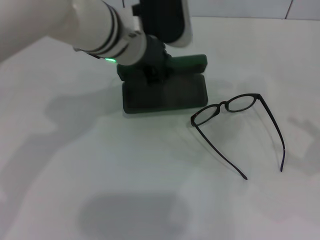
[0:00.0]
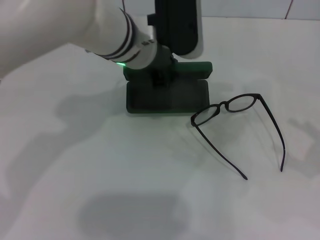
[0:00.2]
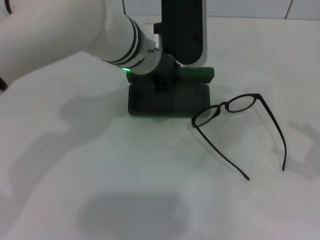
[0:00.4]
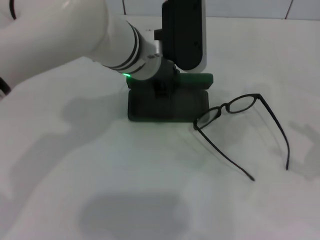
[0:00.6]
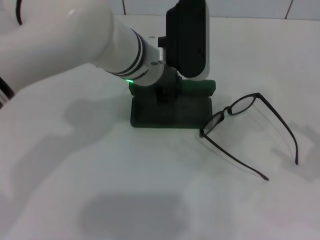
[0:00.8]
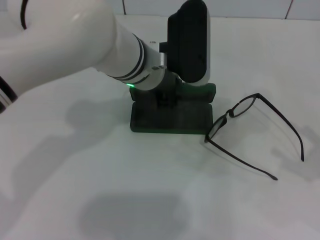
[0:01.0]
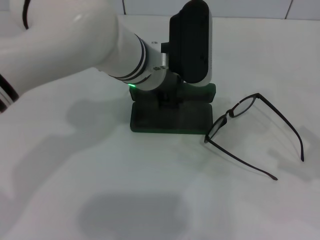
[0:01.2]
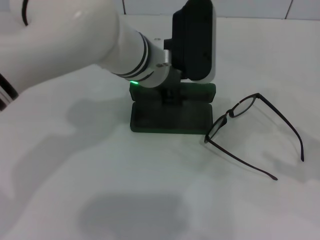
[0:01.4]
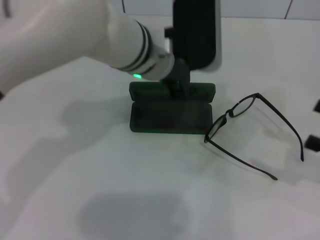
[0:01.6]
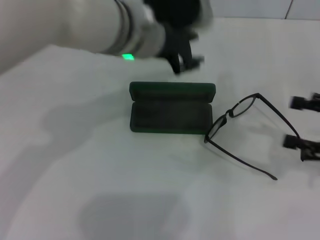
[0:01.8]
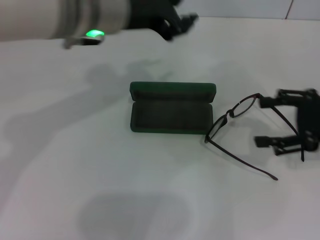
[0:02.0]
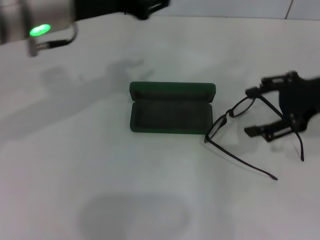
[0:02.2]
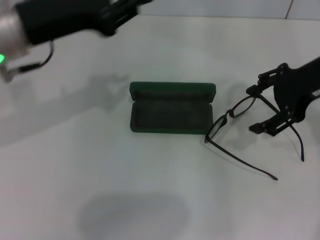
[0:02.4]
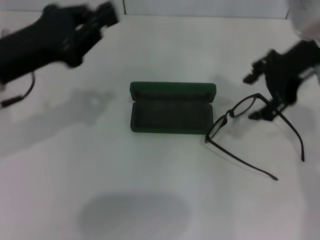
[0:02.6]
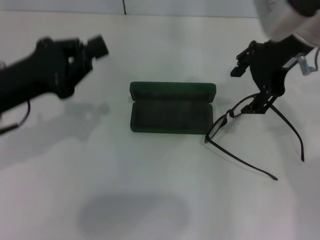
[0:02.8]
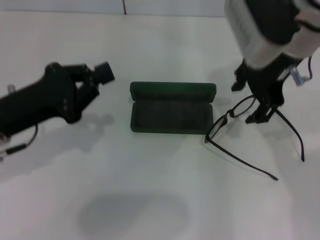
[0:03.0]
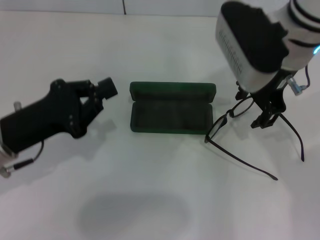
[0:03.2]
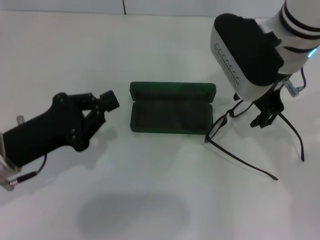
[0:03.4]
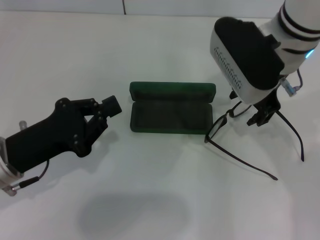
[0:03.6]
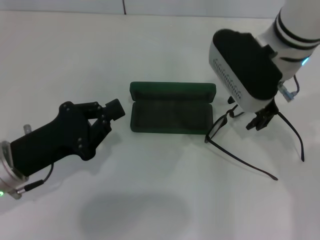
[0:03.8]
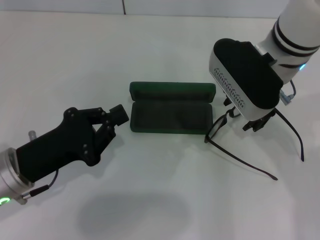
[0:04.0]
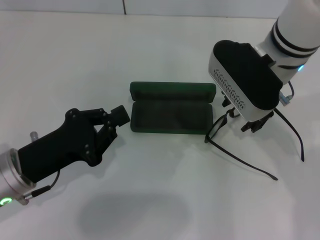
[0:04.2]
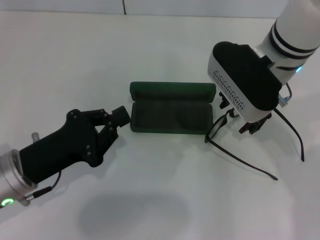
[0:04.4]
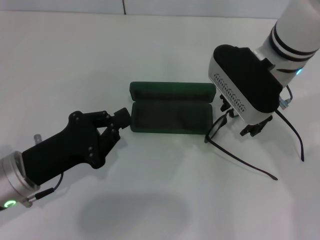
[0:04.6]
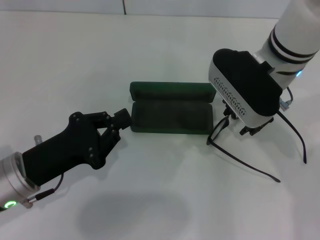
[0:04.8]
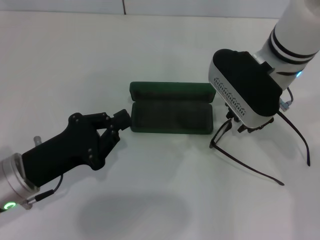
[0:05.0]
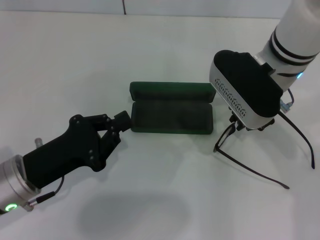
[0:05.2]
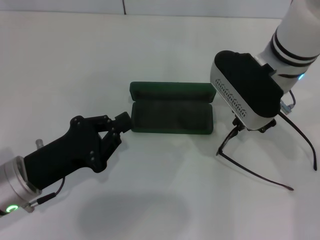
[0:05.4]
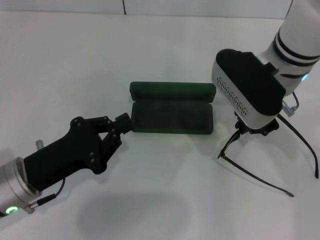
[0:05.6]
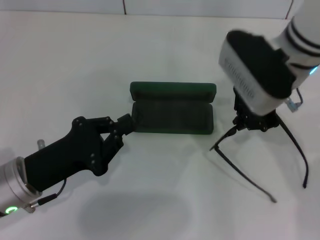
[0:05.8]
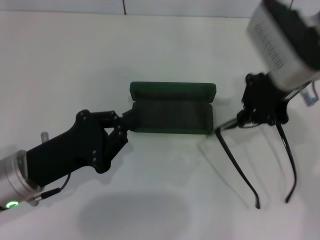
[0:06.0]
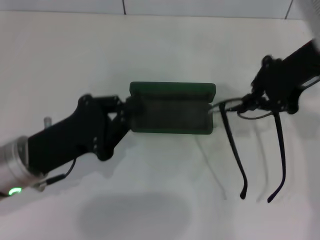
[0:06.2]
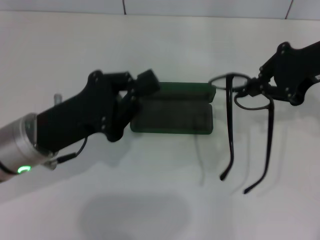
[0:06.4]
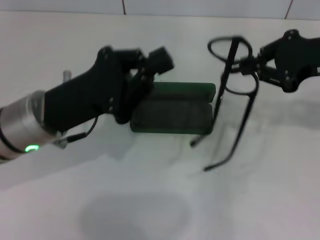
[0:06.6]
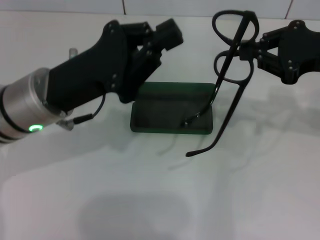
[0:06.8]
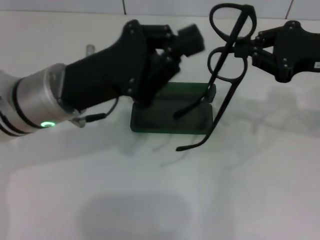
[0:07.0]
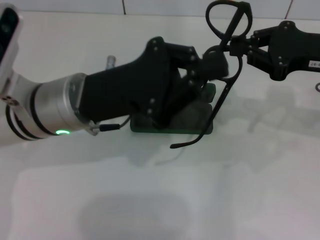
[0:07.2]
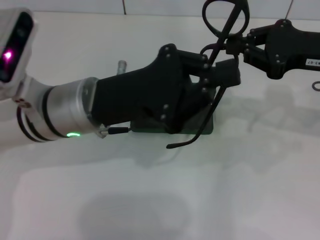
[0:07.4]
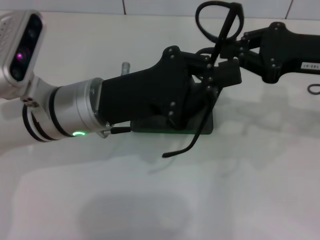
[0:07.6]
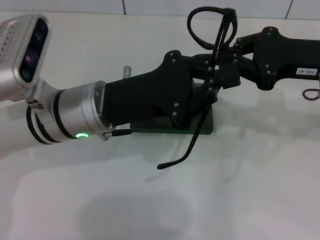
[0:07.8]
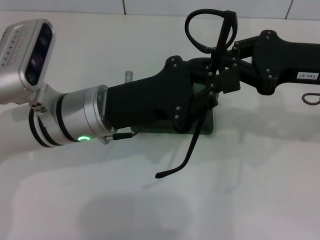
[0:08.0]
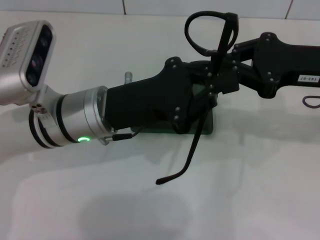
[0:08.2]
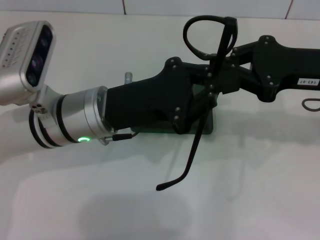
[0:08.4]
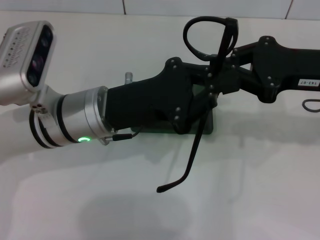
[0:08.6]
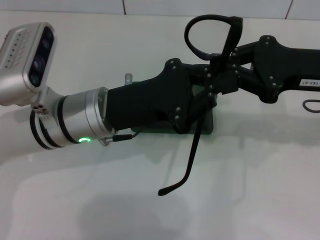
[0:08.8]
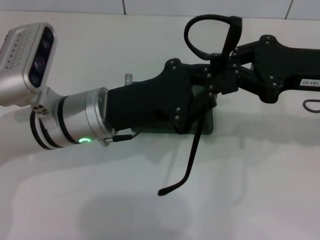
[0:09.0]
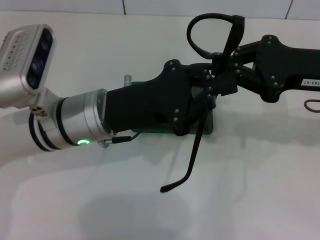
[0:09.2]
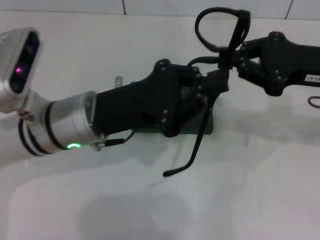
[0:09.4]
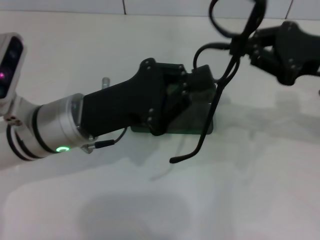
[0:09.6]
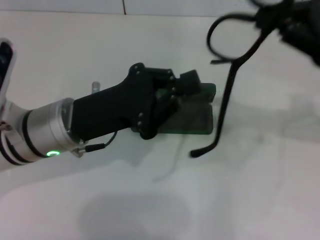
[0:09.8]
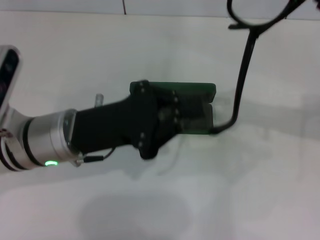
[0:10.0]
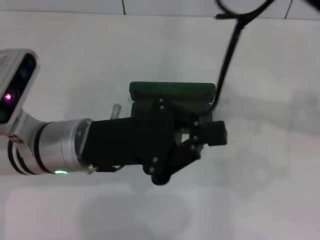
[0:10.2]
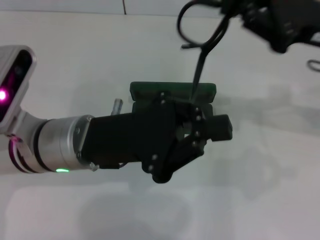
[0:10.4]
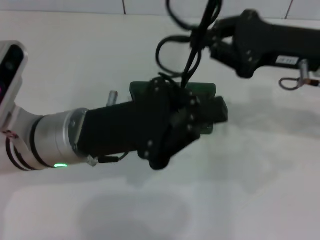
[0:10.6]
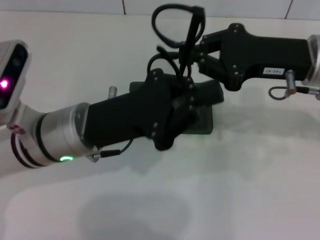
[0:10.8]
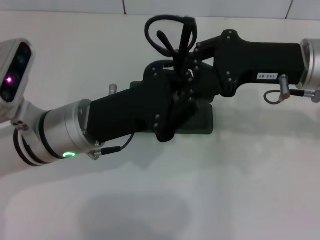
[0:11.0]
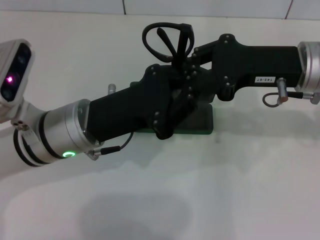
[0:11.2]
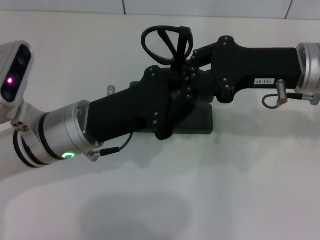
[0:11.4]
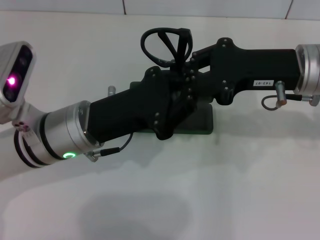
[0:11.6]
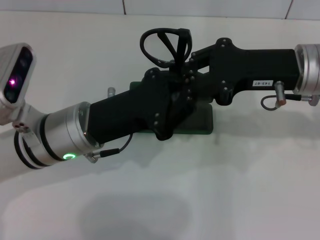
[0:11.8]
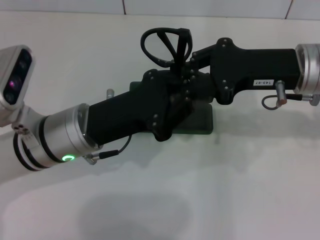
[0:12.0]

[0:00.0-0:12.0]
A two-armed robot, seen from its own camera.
Step, 0:00.0 to 0:01.6: Place the glasses case in the center of the table with your left hand.
Step, 0:01.8 to 0:05.4: Grab the eyeglass frame with your right hand.
Step, 0:05.6 to 0:12.0: Fold the frame with your left hand.
0:01.6 to 0:03.0: The left gripper goes some 25 cm to the left and backward, and closes; the right gripper shifts some 30 cm to the left, forward and upward.
0:03.0 to 0:04.4: The two grippers go approximately 5 cm downward.
0:04.4 to 0:06.0: The right gripper moves approximately 5 cm, and closes.
0:06.0 to 0:07.6: The left gripper travels to the right, forward and upward by about 15 cm. Meanwhile the right gripper is displaced to the right by roughly 10 cm.
0:10.4 to 0:12.0: The right gripper shifts some 5 cm to the left.

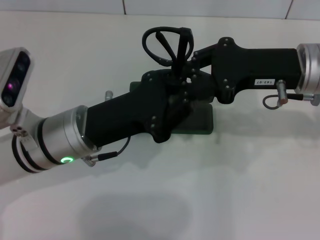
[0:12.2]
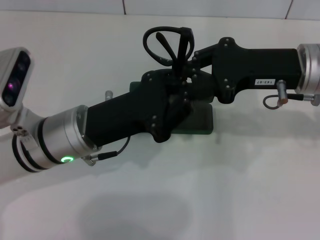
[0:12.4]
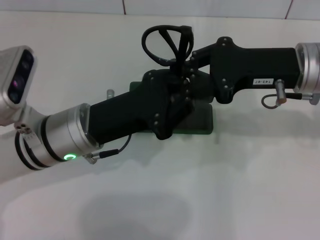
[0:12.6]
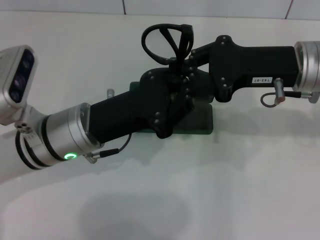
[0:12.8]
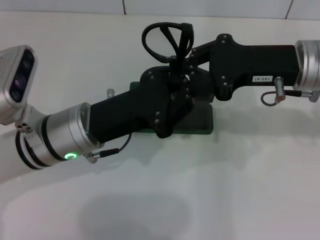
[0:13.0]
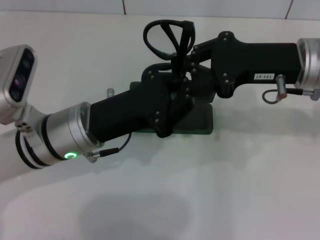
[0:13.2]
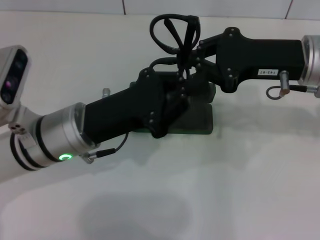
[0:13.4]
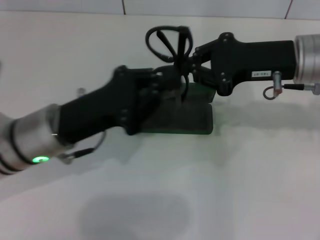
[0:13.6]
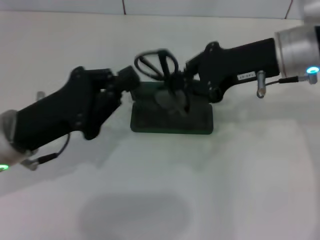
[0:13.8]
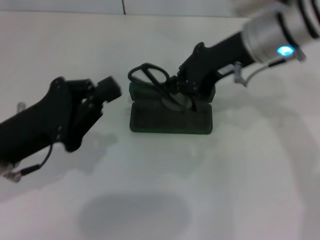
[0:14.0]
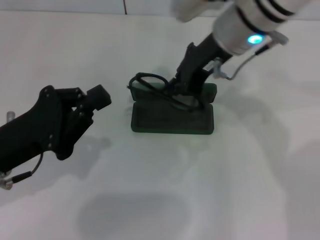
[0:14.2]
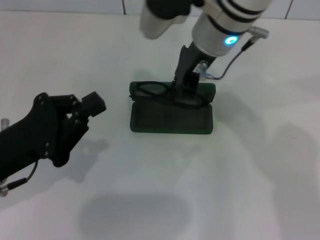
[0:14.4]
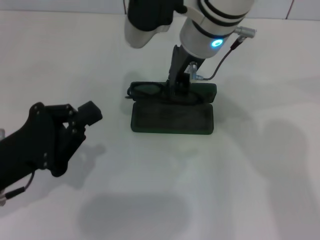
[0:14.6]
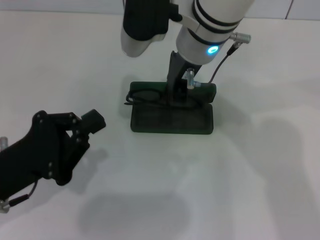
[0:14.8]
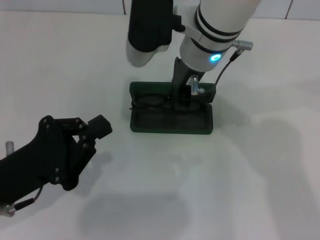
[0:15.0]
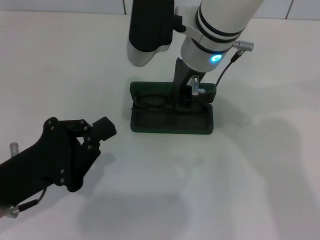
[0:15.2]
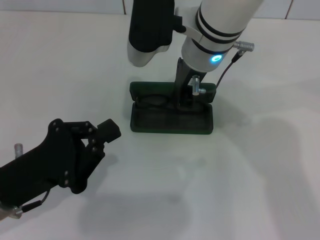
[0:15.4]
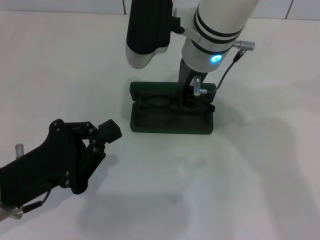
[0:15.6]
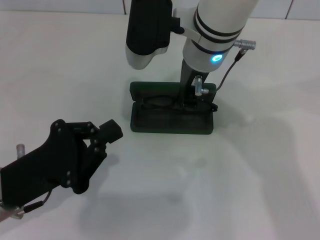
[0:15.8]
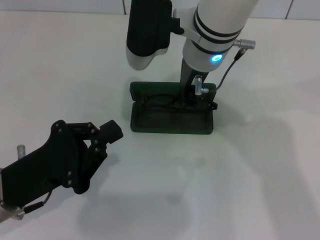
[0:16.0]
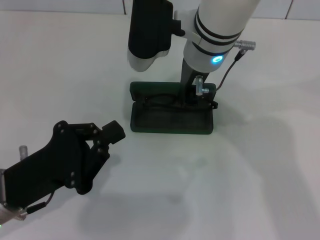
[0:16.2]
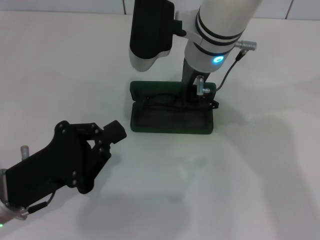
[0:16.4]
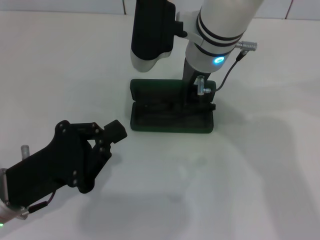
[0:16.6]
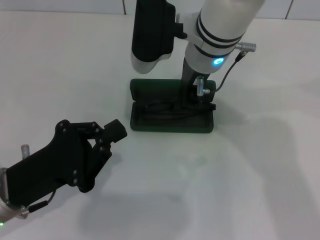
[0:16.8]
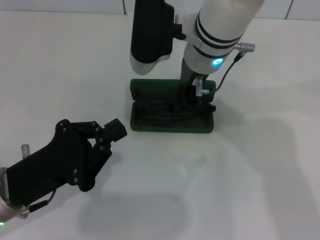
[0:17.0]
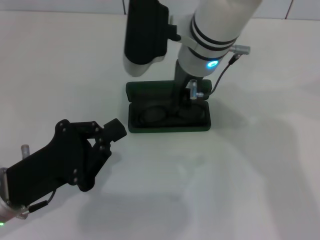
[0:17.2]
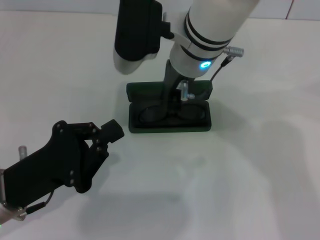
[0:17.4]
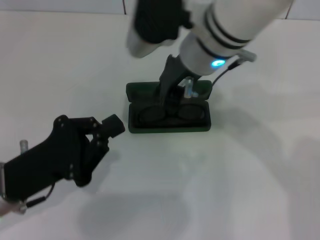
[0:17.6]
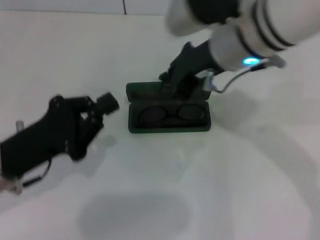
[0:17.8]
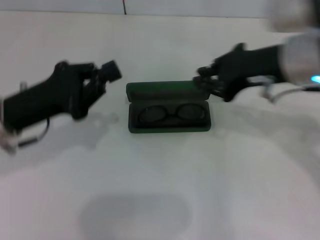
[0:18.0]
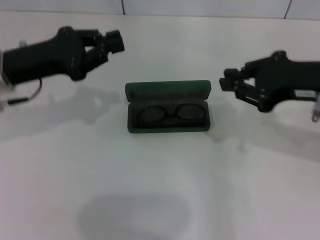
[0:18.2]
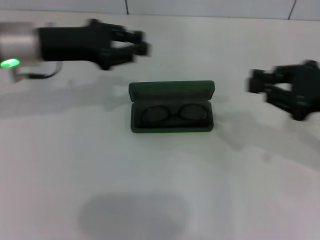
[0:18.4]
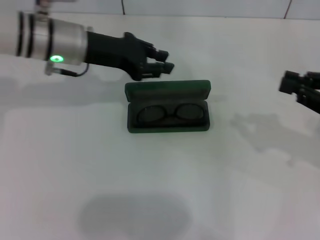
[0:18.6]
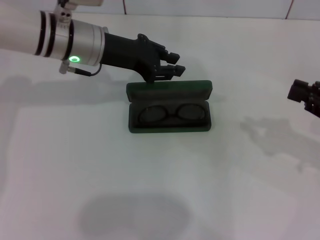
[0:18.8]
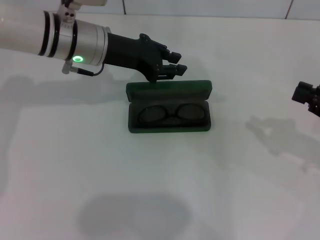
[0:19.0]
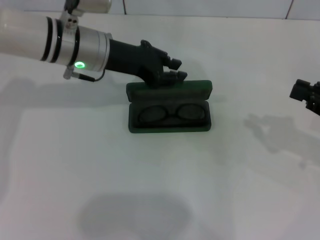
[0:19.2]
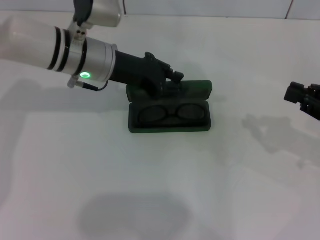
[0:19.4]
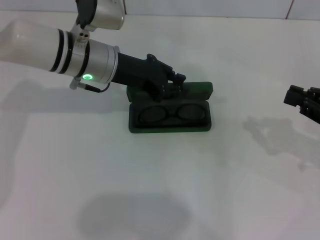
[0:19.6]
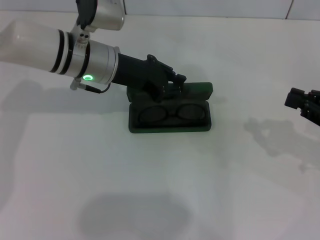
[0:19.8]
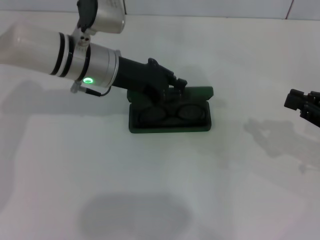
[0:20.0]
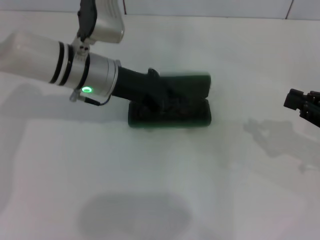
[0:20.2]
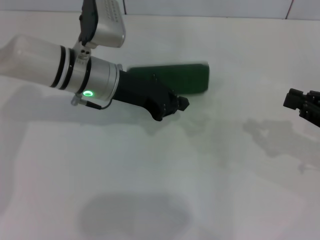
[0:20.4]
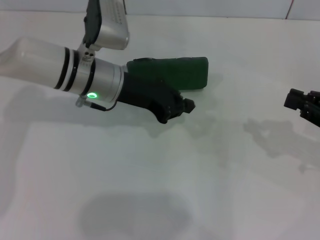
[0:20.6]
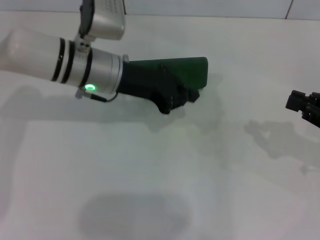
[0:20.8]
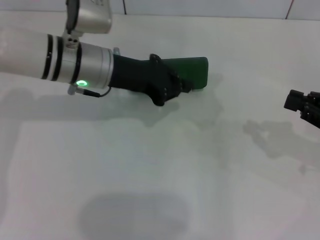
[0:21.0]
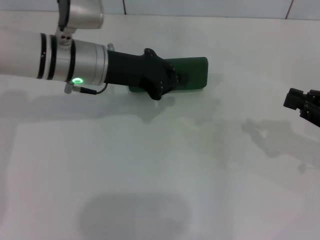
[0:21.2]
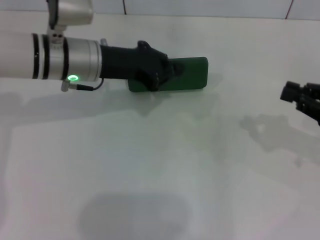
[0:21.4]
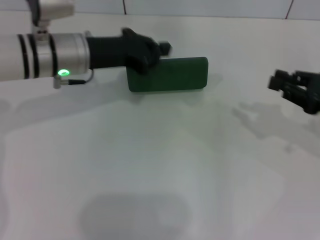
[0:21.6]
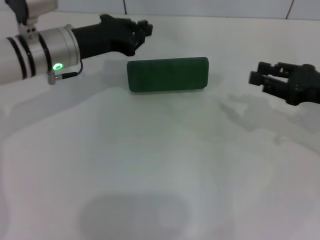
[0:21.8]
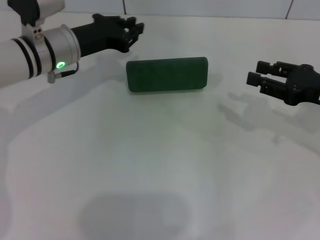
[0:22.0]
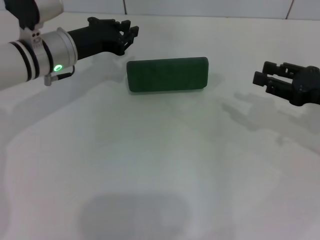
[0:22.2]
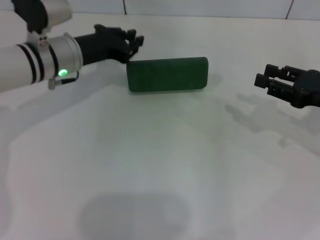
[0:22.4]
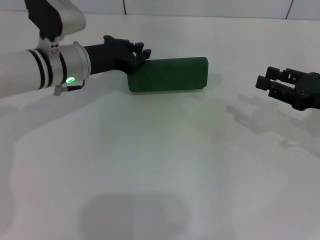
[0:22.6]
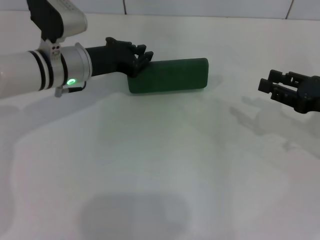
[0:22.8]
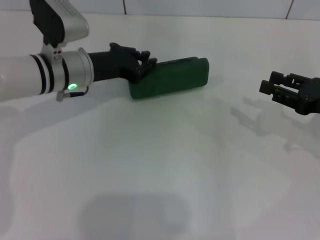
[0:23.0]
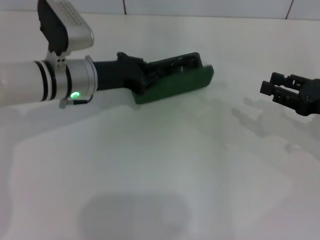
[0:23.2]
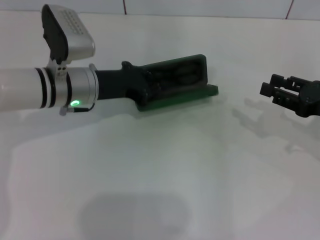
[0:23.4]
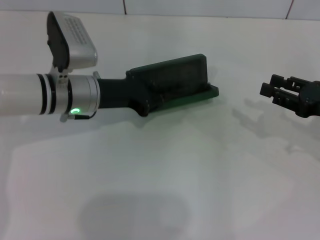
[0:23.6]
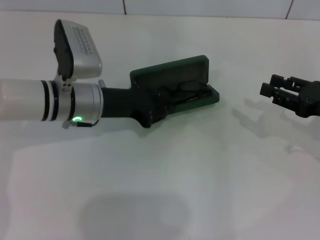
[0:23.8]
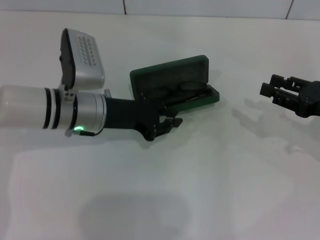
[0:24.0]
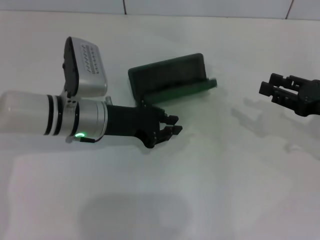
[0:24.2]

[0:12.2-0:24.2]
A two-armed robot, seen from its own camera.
Step, 0:12.2 to 0:17.0: Put the glasses into the case with your right hand.
0:12.2 to 0:13.8: The left gripper shifts approximately 5 cm to the left.
0:13.8 to 0:15.2: The left gripper goes some 5 cm backward. The right gripper travels to the left by about 15 cm.
0:15.2 to 0:16.6: There are only small adjustments of the grippers.
0:16.6 to 0:18.2: The left gripper moves forward and upward, some 15 cm. The right gripper heads to the right and backward, covering roughly 25 cm.
0:18.2 to 0:19.8: The left gripper travels to the right and forward by approximately 15 cm. Meanwhile the right gripper shifts about 15 cm to the right and downward.
0:19.8 to 0:21.2: The grippers move only a little.
0:21.2 to 0:22.6: The left gripper changes place by approximately 5 cm. The right gripper shifts by some 5 cm, and opens its fingers.
0:22.6 to 0:24.2: The left gripper travels backward by some 5 cm.
